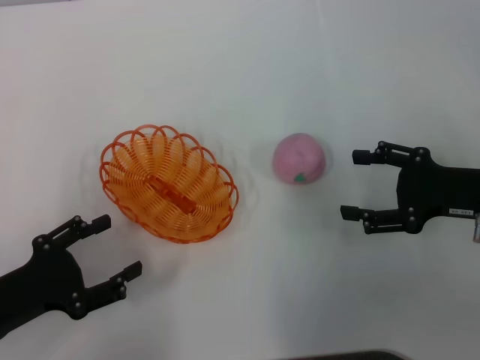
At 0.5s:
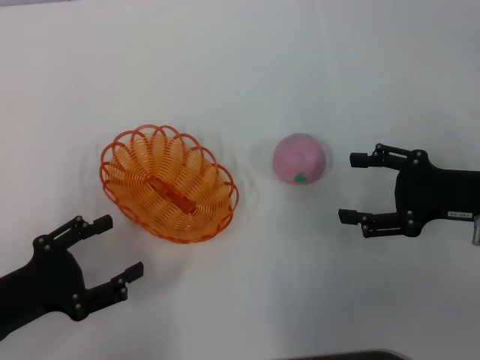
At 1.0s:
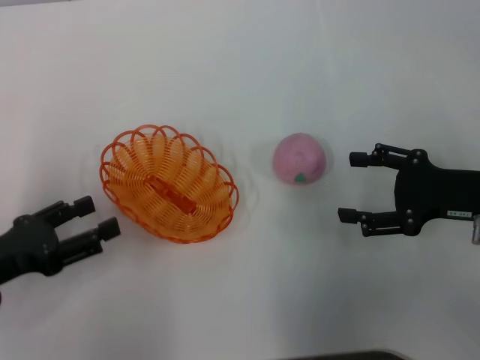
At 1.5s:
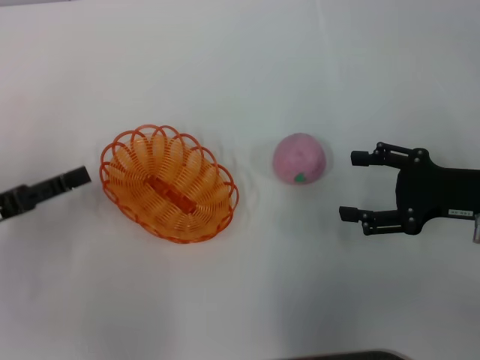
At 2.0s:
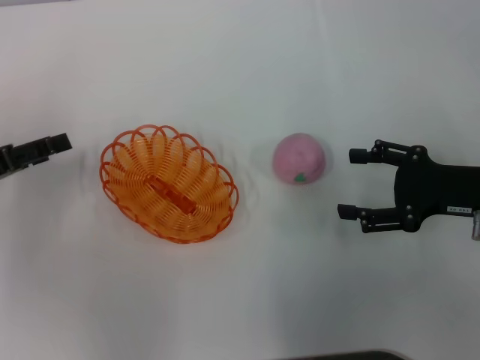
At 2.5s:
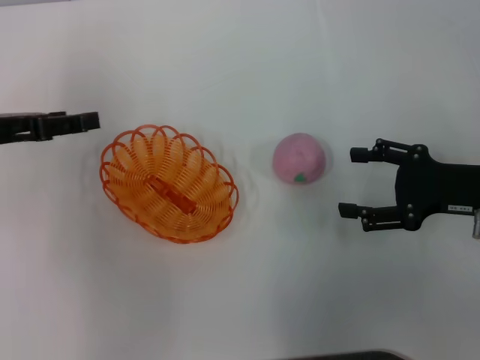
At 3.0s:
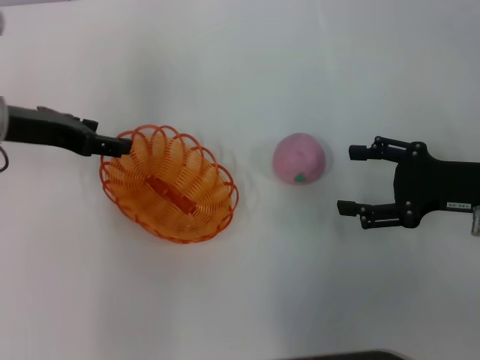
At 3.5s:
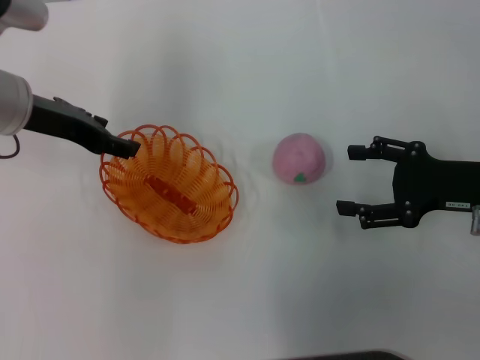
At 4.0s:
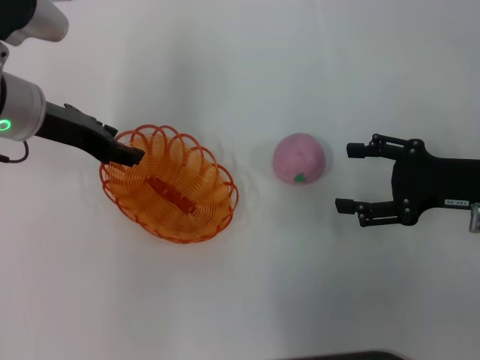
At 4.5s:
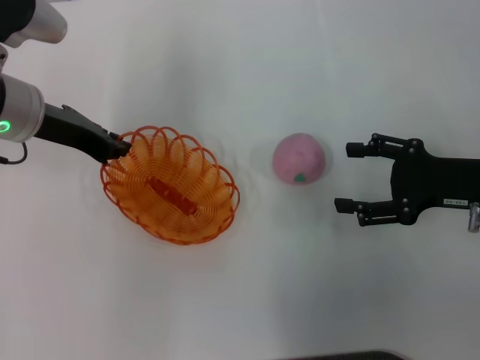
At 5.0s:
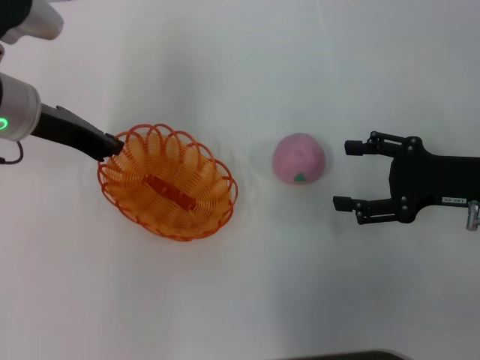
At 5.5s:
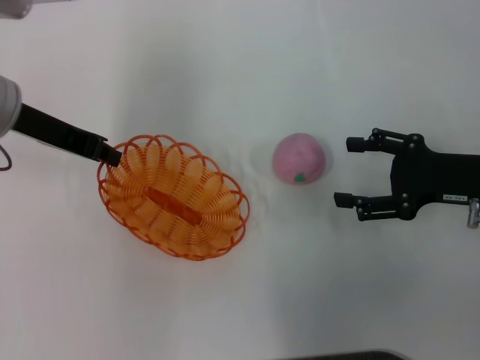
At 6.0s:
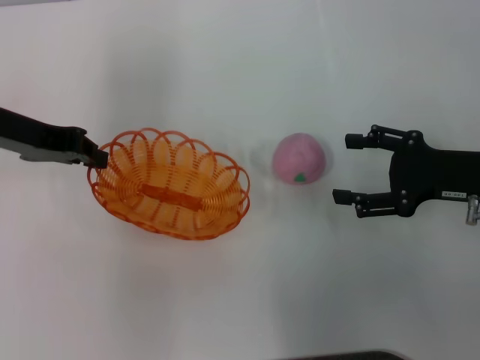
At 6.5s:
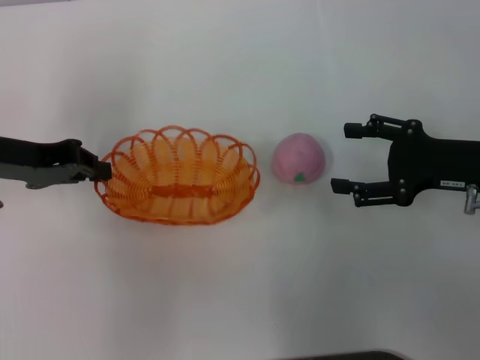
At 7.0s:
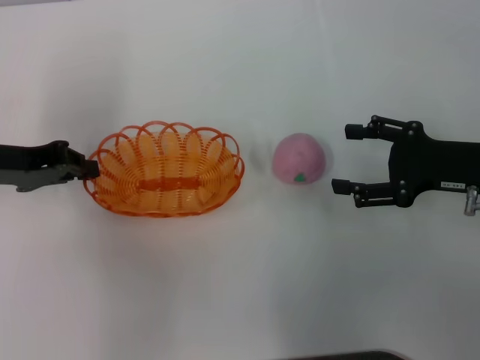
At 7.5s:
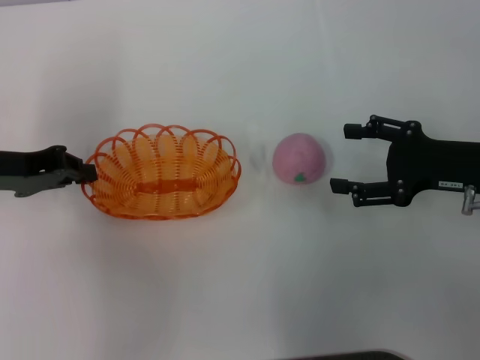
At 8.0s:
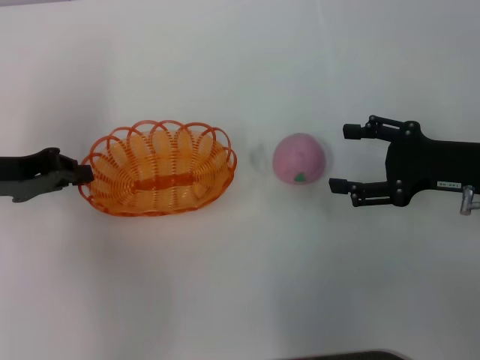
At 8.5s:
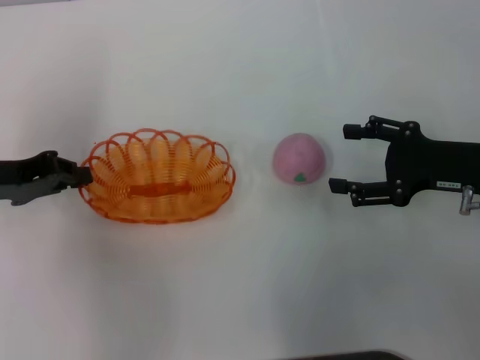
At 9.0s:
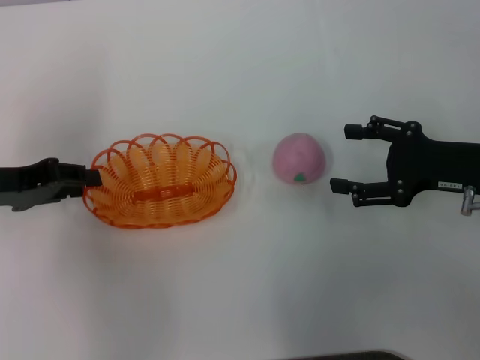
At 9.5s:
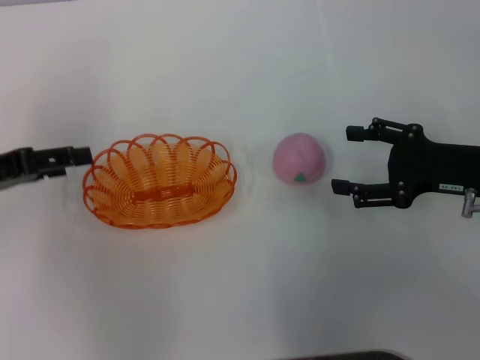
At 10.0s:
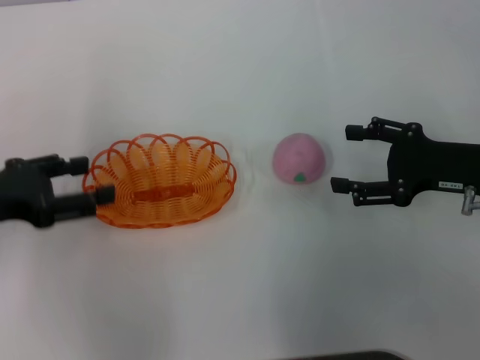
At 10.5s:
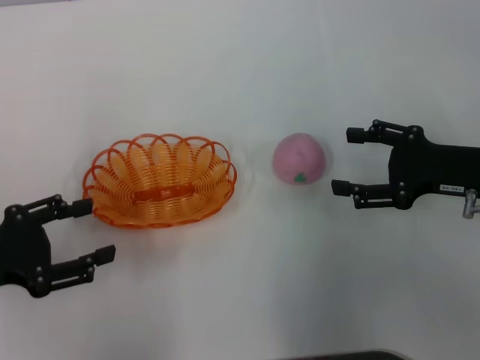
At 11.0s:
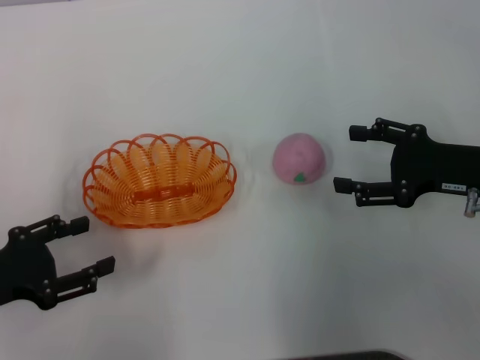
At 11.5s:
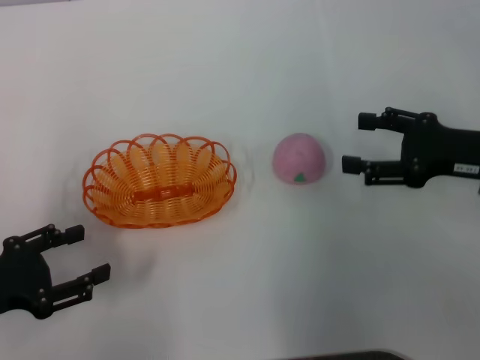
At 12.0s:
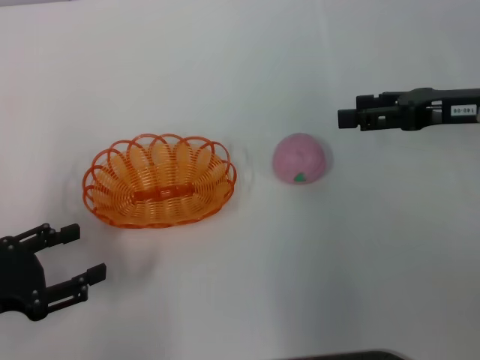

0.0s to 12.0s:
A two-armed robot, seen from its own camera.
Step, 0.0s to 5.0s: Pick up the basket with the left gripper.
Step, 5.5s to 9.5s: Place the basket in the center of view with the left gripper.
0.0s to 2.0s: The left gripper moves forward and upward, roughly 10 cm.
2.0s to 4.0s: The left gripper shifts roughly 15 cm to the right, forward and upward.
4.0s to 6.0s: The left gripper ends up some 5 cm from where it was, and closes its fingers.
6.0s to 8.0s: The left gripper shifts by roughly 10 cm.
8.0s to 10.0s: The left gripper opens up.
10.0s to 12.0s: The left gripper moves backward and downward, approximately 10 cm, while the right gripper shifts by roughly 5 cm.

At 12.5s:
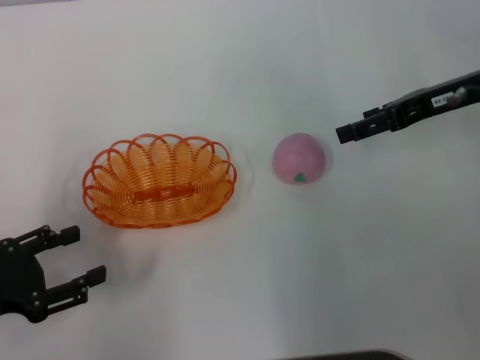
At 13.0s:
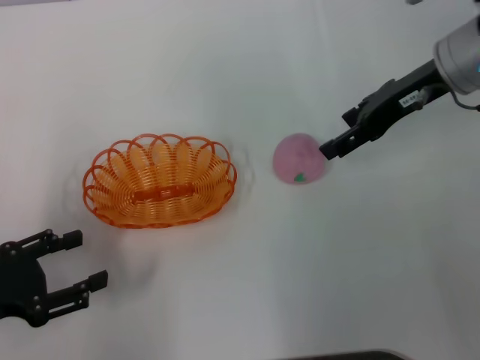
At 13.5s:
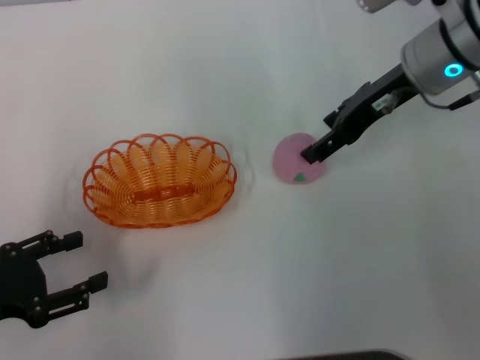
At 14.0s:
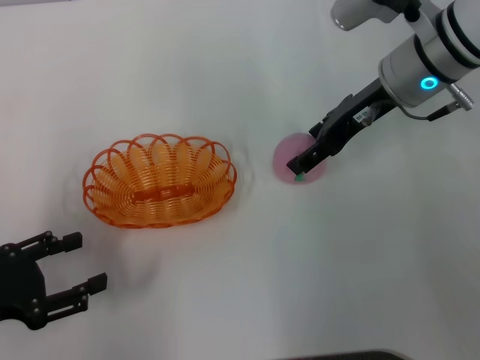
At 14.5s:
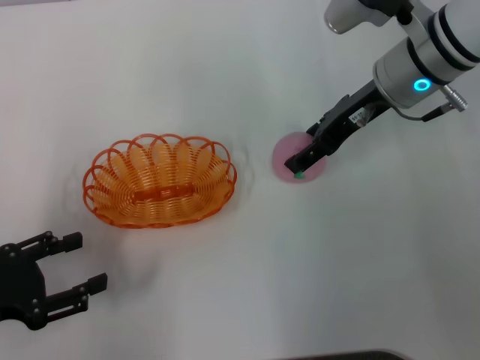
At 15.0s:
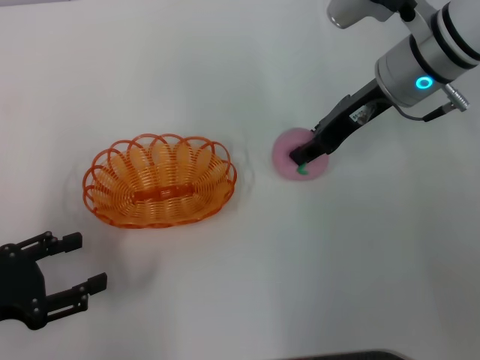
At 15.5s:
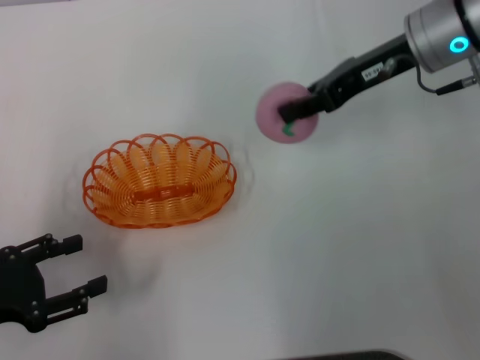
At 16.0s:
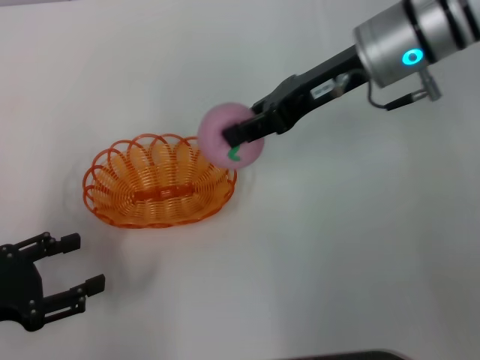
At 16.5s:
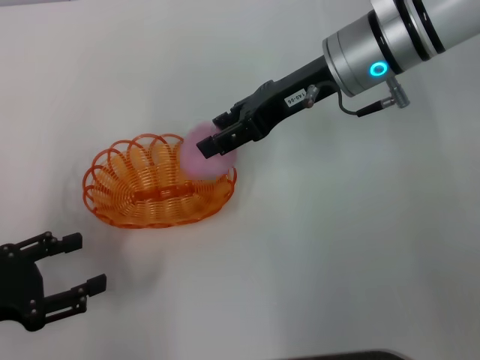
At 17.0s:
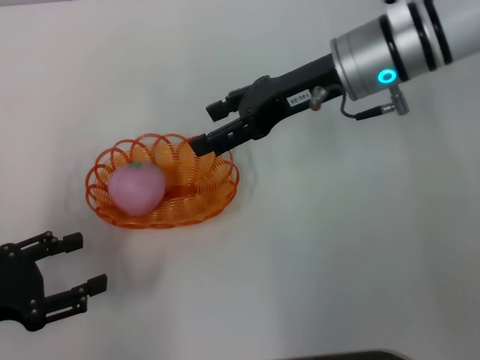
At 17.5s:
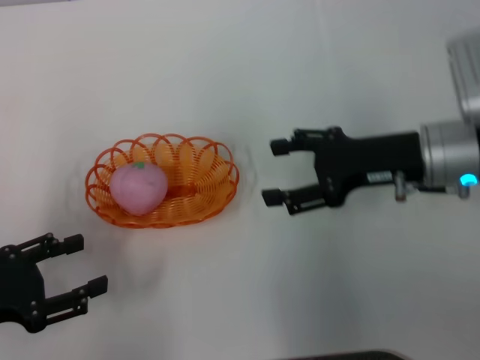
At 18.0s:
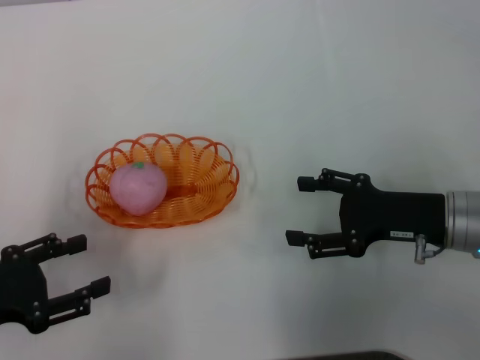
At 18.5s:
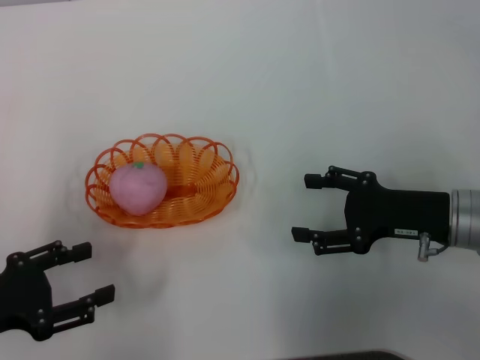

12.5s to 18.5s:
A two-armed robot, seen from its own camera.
Step, 12.5s to 15.0s: Pick up the peach with the right gripper.
Step, 16.0s to 17.0s: Place the peach into the basket with the right gripper.
12.5s to 14.5s: The right gripper is displaced to the left by about 10 cm.
14.5s to 16.5s: The right gripper changes place by approximately 5 cm, and closes.
16.5s to 18.5s: The right gripper goes about 20 cm backward, downward and to the right, and opens its fingers.
